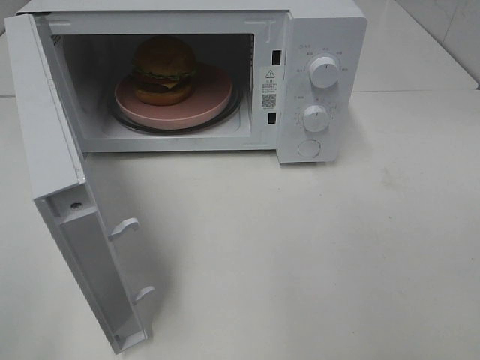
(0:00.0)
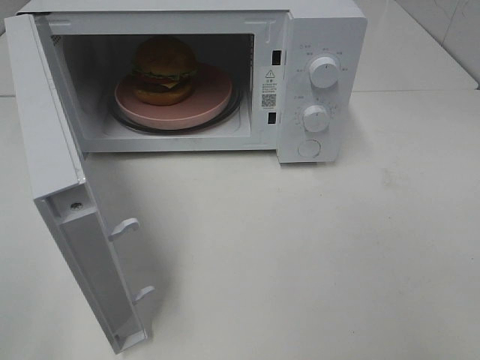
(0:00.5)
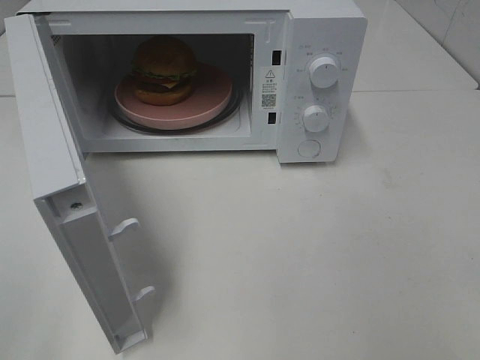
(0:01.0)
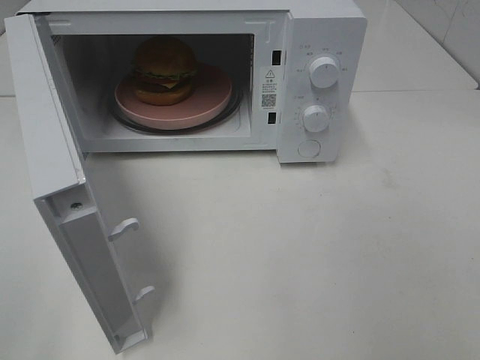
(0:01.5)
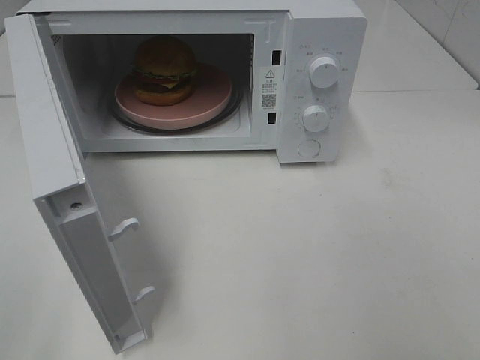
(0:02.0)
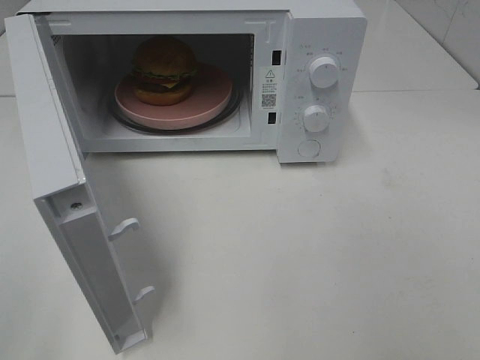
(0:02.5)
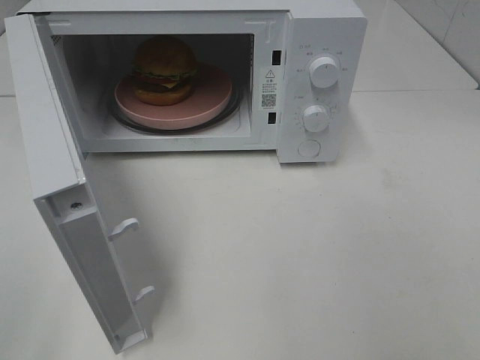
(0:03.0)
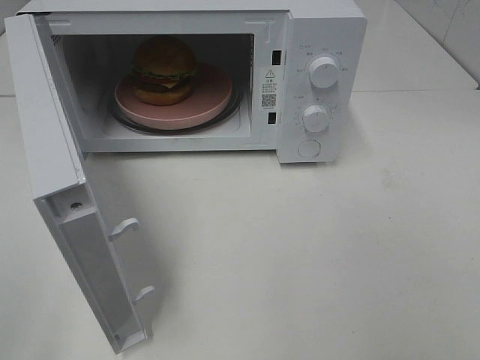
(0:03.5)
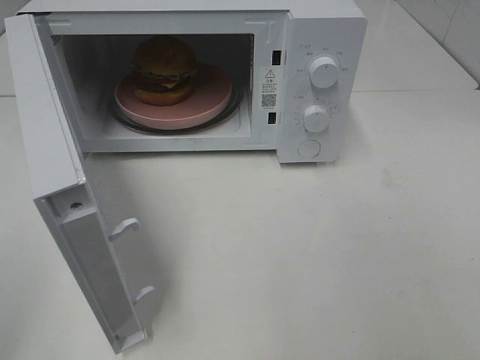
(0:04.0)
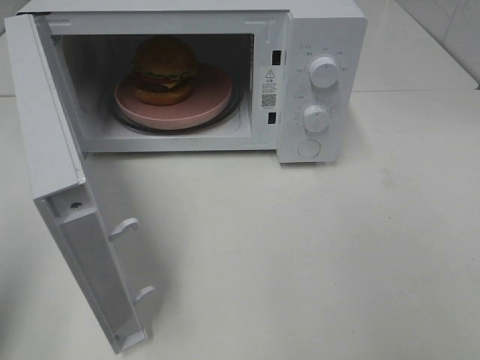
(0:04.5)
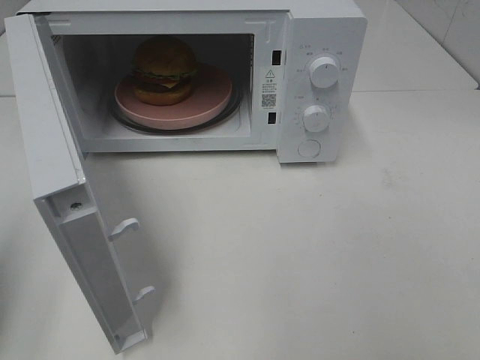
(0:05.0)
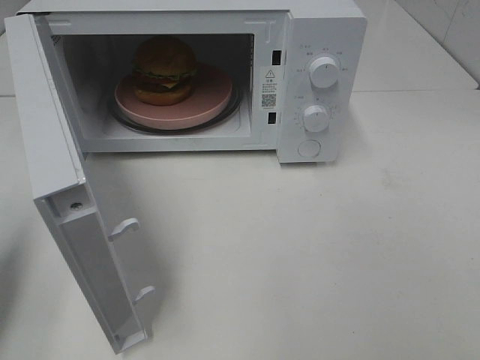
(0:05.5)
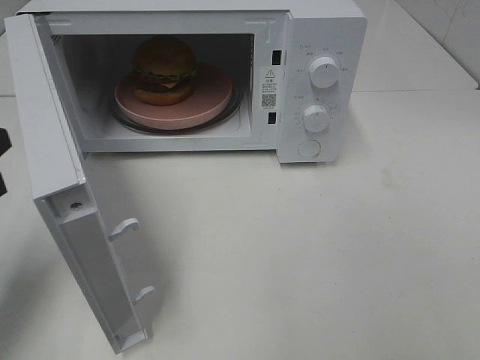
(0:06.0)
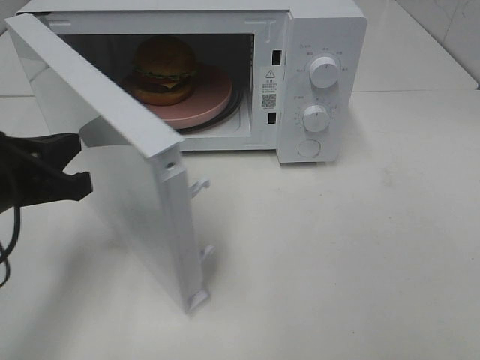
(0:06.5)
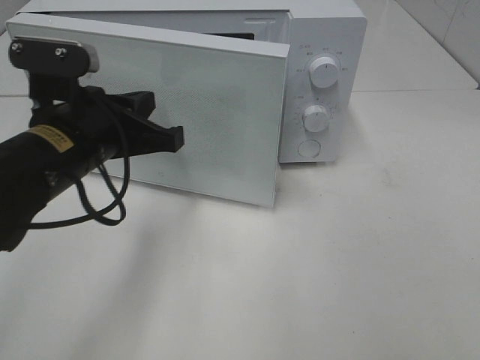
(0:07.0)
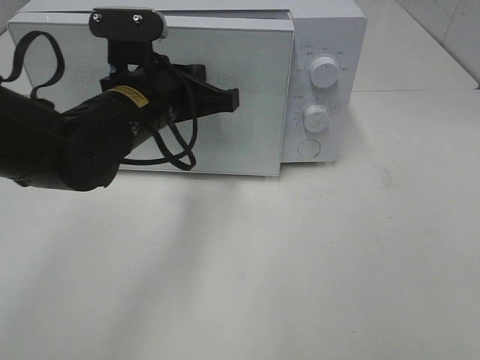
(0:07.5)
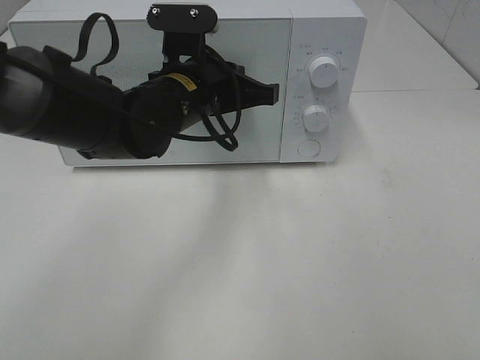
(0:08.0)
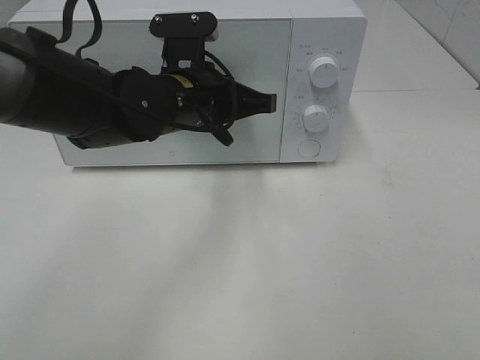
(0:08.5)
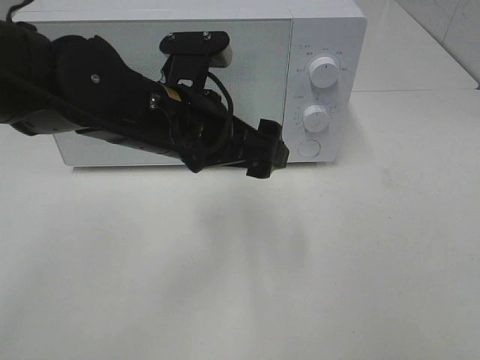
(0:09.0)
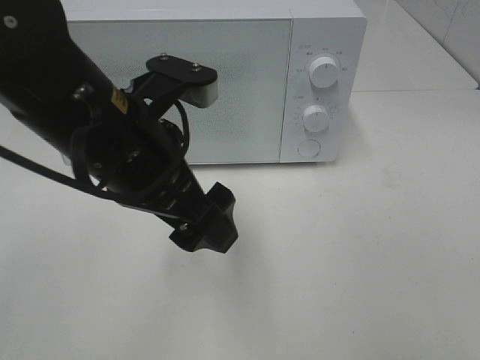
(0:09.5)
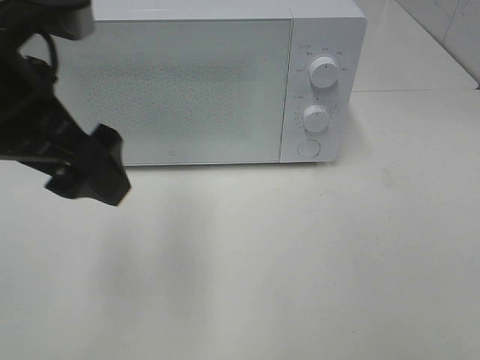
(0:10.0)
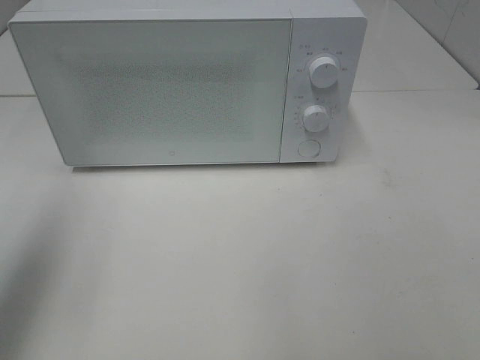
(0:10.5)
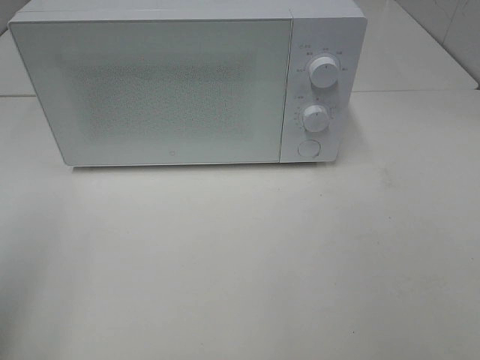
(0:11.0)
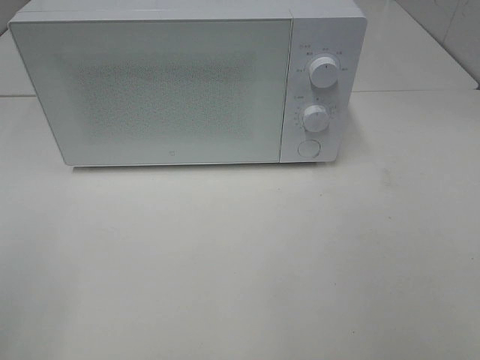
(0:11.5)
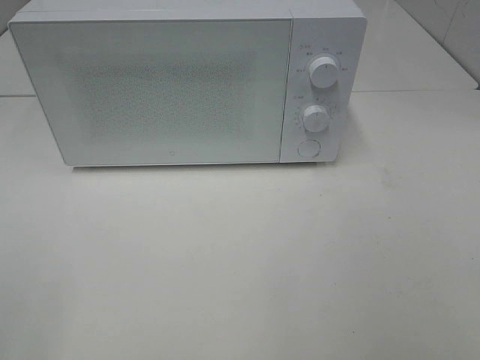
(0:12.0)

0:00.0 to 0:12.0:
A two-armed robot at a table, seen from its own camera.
Task of the whole recording: Heat the burger.
Step, 0:00.0 to 0:08.5: Left hand: close the microwave door.
0:04.0 to 0:06.0: The left gripper goes approximately 20 cm forward and downward.
0:06.0 to 0:08.0: The left gripper goes roughly 30 cm to the right and forward.
0:08.0 to 0:10.0: The left gripper travels backward, to the left and upward by about 20 cm, and opens.
0:10.0 to 0:12.0: The left gripper heads backward and to the left, covering about 25 cm.

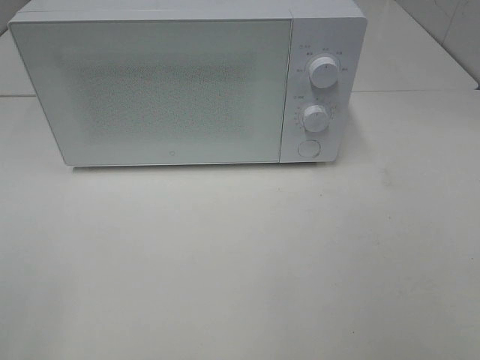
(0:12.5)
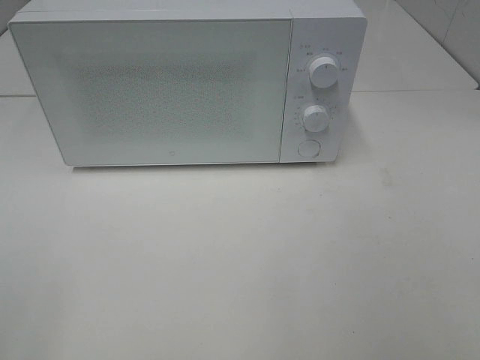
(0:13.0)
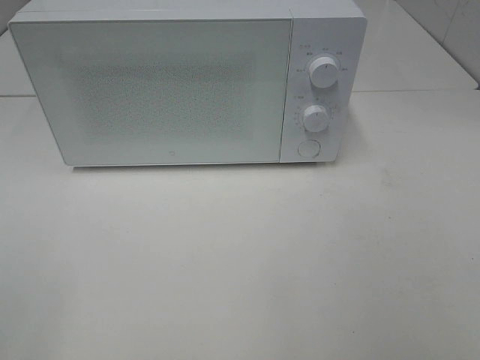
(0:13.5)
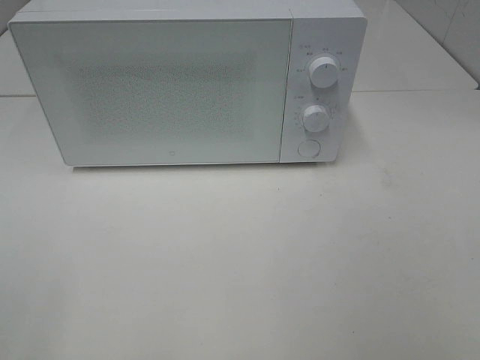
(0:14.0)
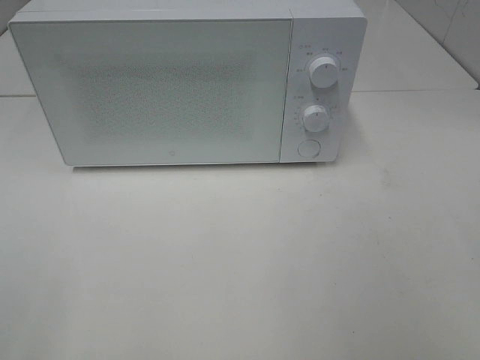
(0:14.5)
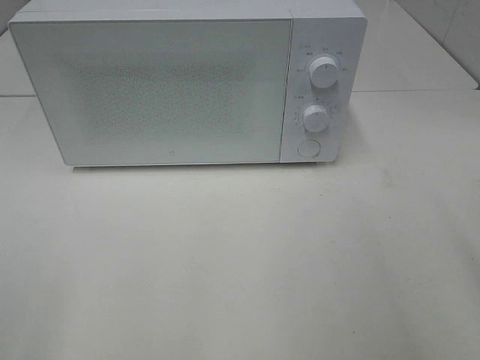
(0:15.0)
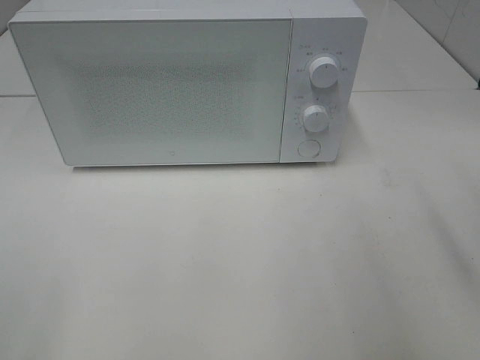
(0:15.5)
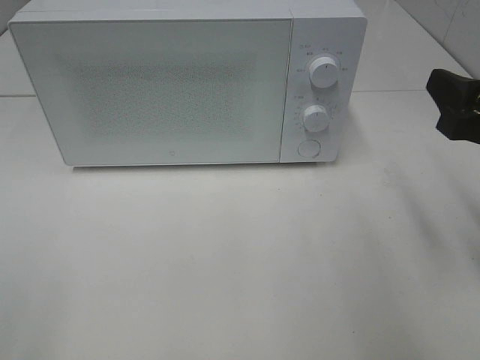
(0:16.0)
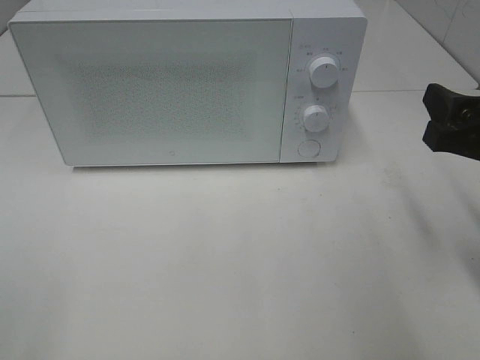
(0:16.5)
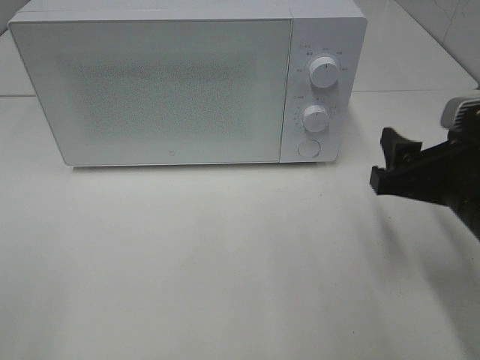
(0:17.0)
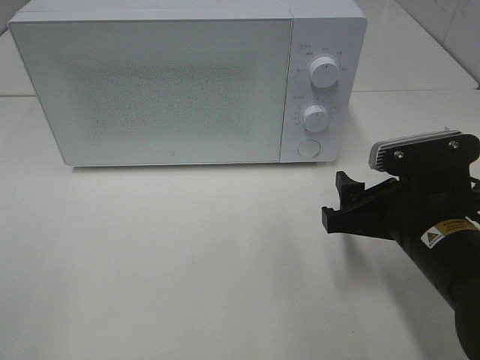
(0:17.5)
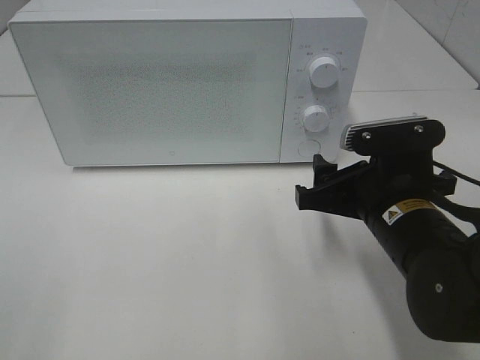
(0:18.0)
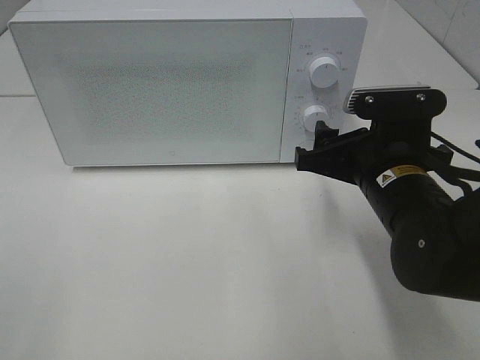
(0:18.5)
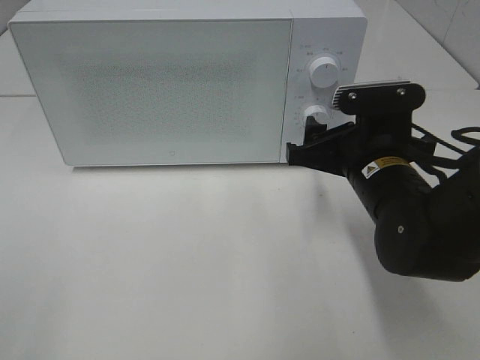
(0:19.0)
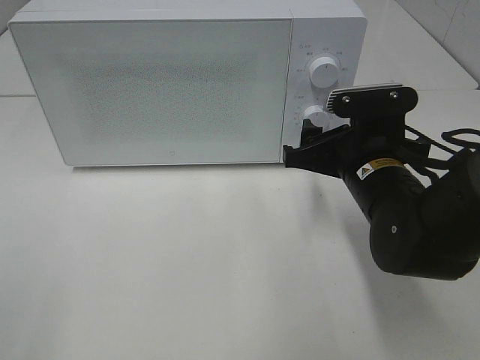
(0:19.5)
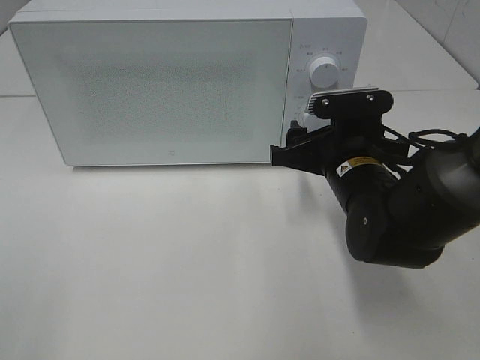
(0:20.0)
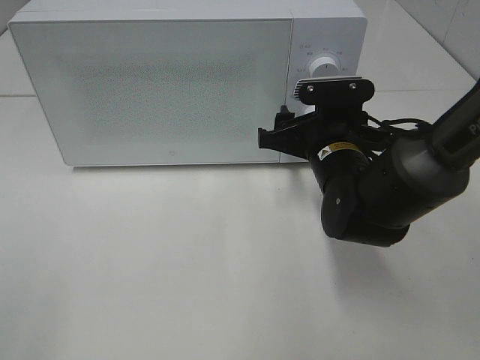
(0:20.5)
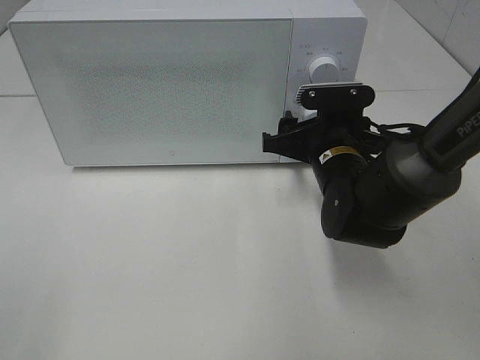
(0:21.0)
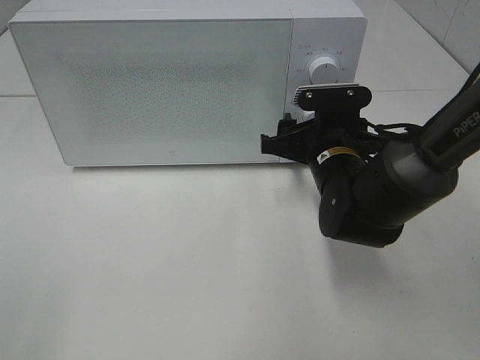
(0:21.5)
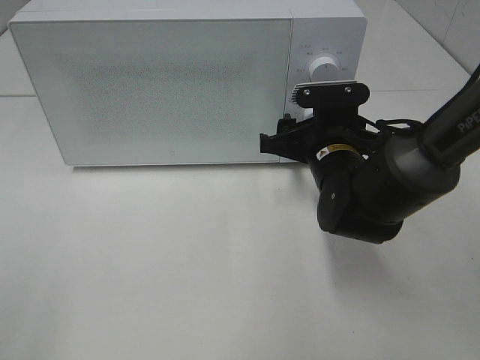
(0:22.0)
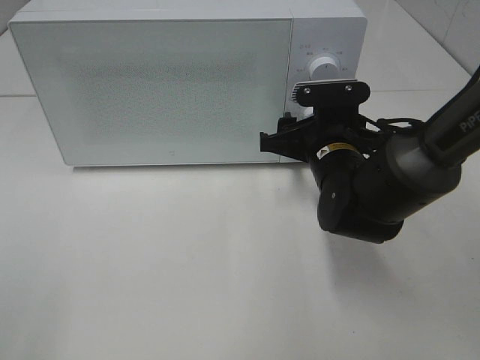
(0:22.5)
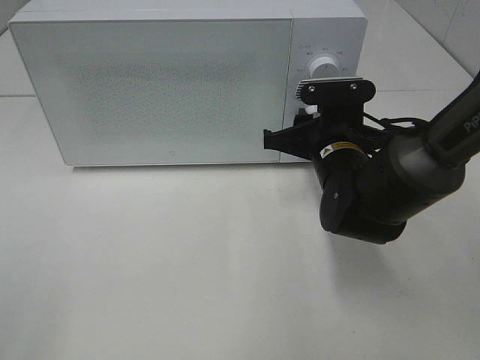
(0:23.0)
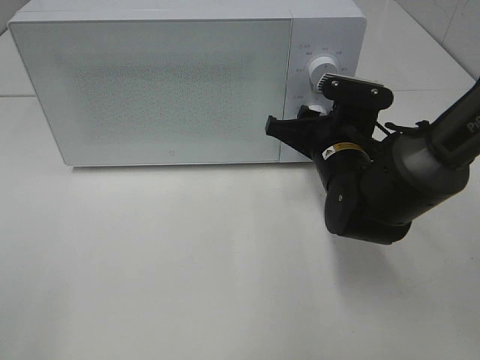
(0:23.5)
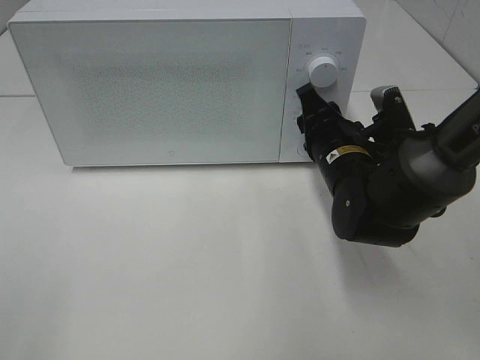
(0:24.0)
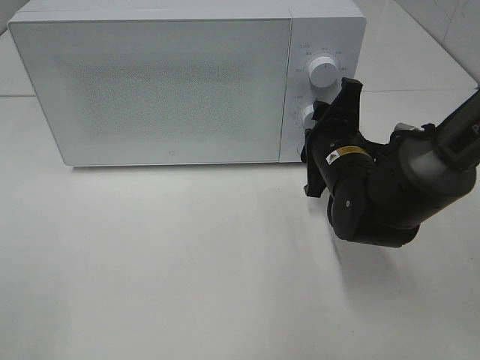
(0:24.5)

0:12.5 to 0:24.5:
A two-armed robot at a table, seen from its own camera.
Task of the whole recording: Heat the burger.
0:14.5 to 0:16.5: The right gripper goes some 15 cm forward and downward.
0:16.5 to 0:18.5: The right gripper heads to the left, downward and forward, covering approximately 15 cm.
0:18.5 to 0:20.5: The right gripper moves forward, approximately 5 cm.
0:20.5 to 0:22.5: There are only small adjustments of the grippers.

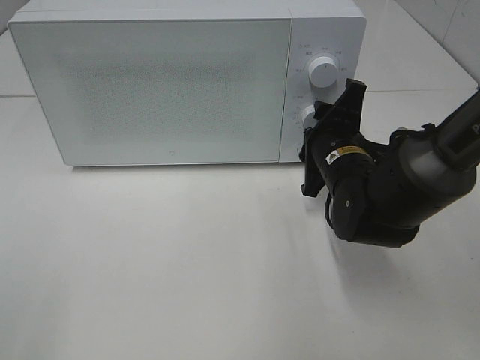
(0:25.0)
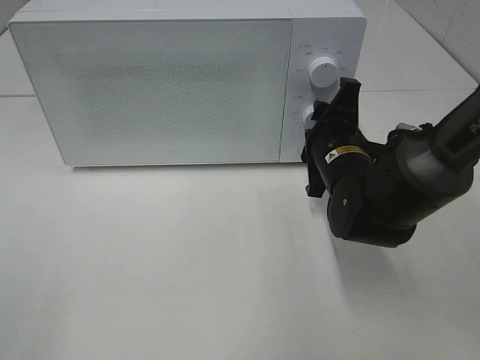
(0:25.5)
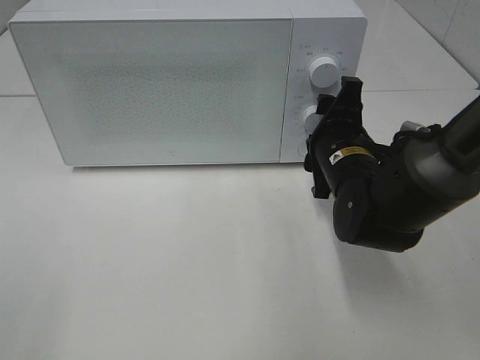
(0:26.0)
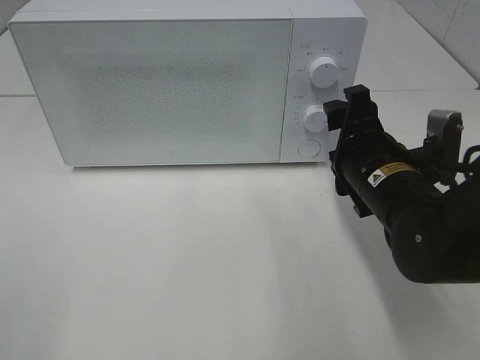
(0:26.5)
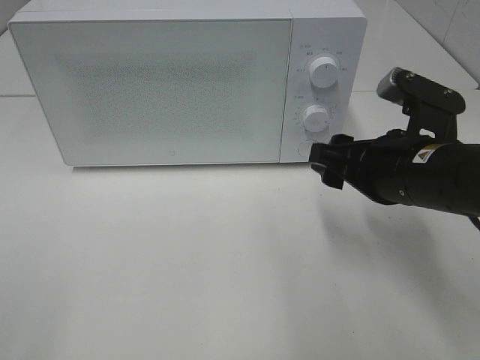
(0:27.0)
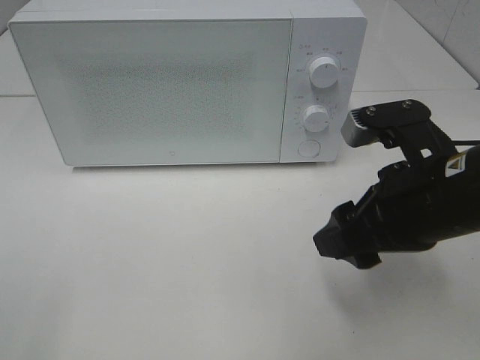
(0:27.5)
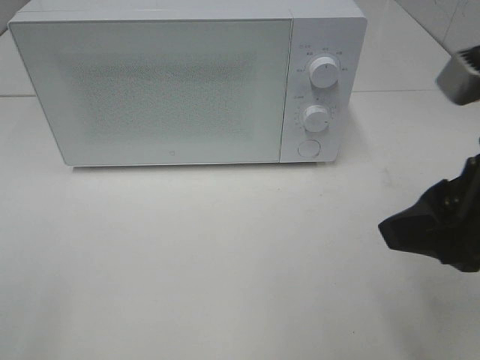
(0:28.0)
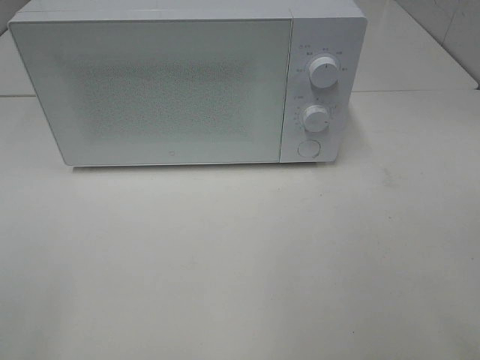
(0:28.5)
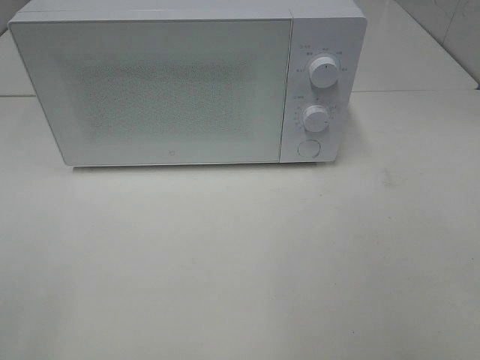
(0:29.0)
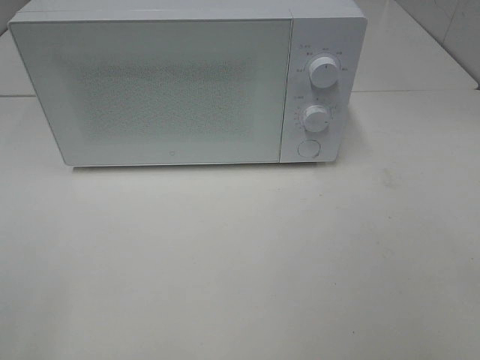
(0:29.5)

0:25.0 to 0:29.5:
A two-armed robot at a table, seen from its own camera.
Task of the whole recording: Heat the burger.
0:25.0 to 0:27.0: The right gripper travels backward and upward by about 10 cm.
0:27.0 to 0:29.5: The right gripper heads backward, upward and to the right, covering approximately 30 cm.
